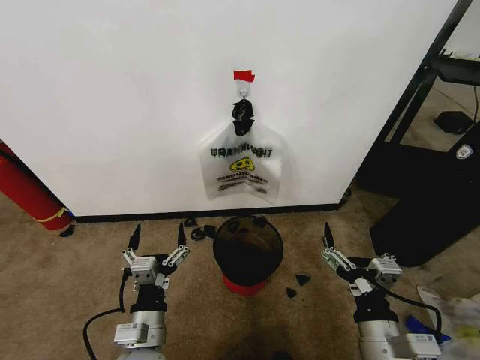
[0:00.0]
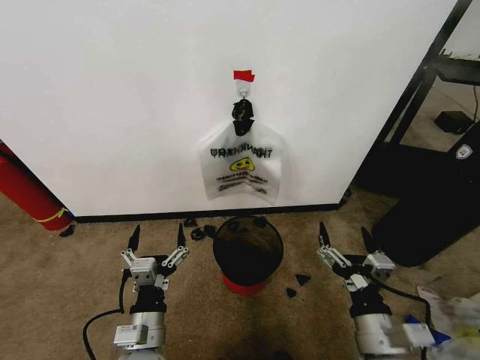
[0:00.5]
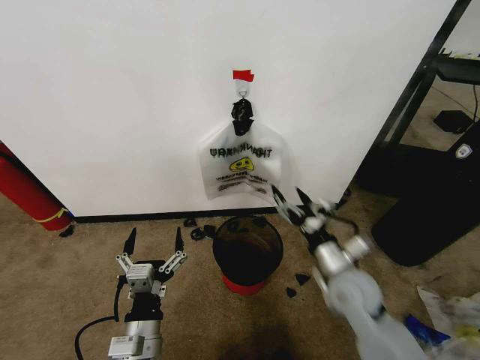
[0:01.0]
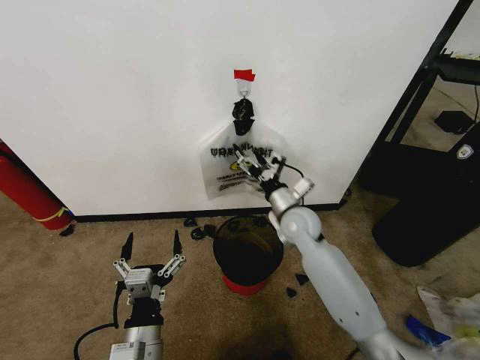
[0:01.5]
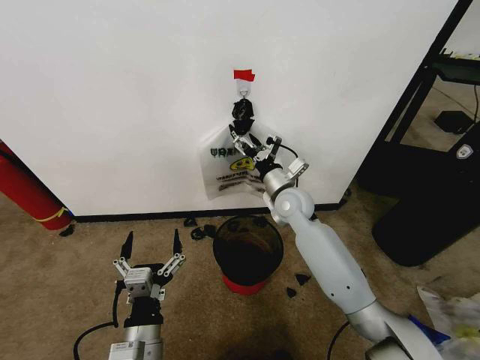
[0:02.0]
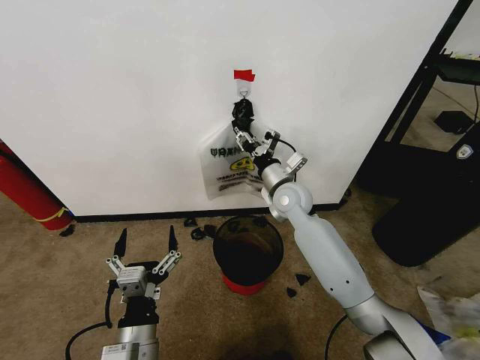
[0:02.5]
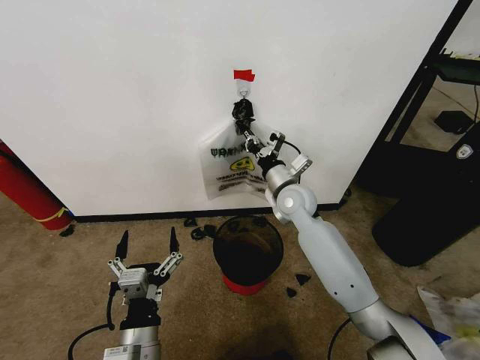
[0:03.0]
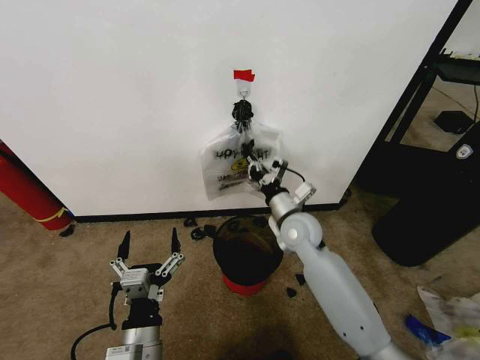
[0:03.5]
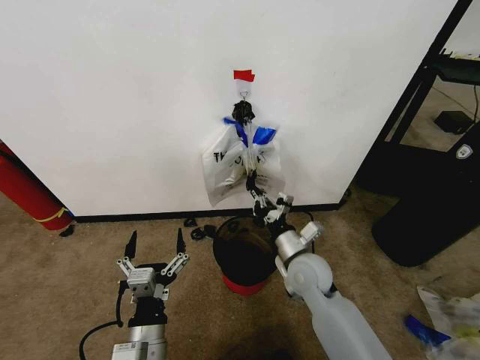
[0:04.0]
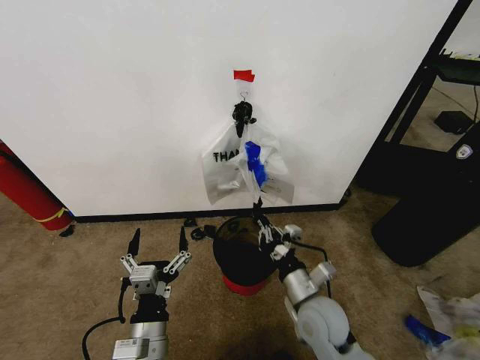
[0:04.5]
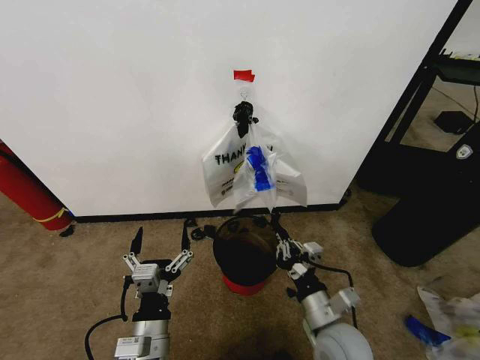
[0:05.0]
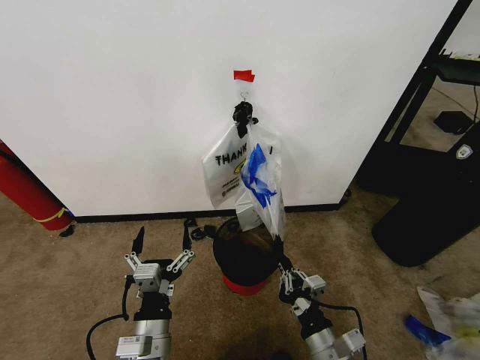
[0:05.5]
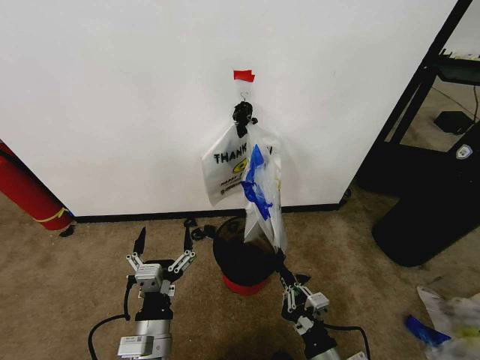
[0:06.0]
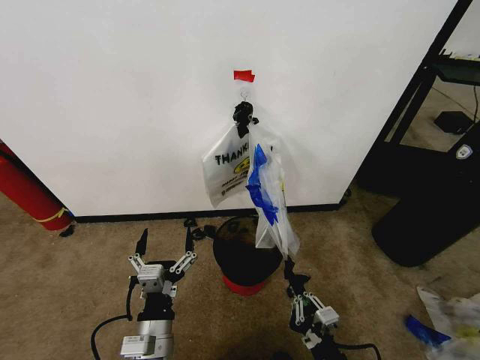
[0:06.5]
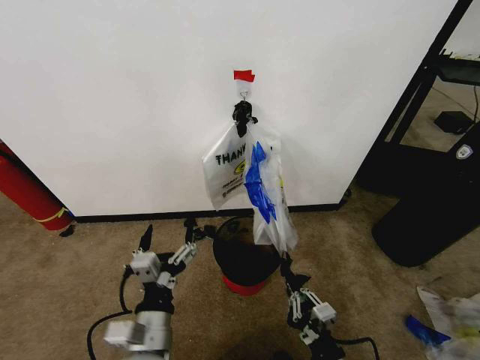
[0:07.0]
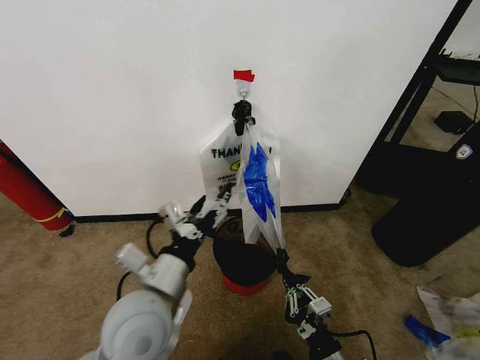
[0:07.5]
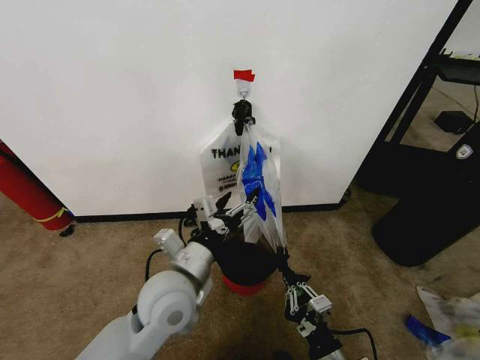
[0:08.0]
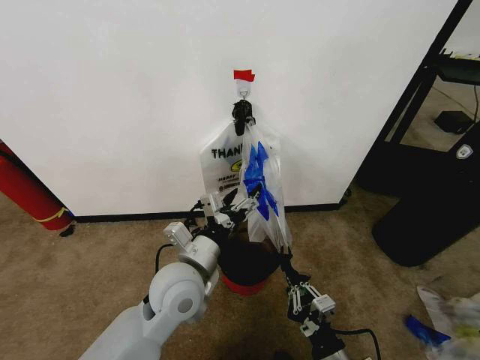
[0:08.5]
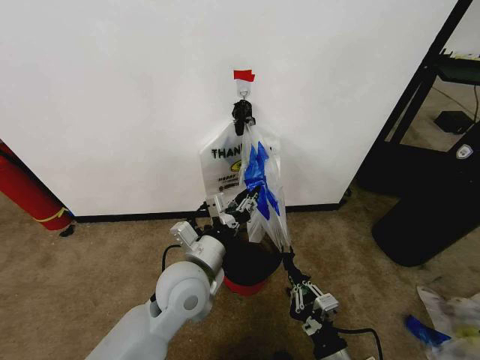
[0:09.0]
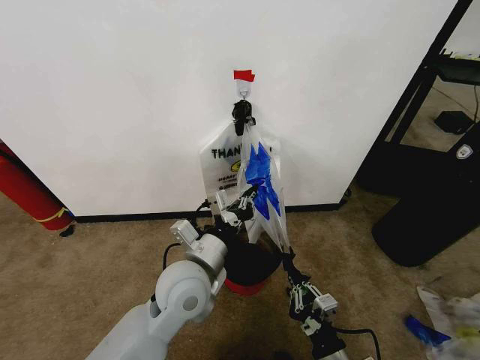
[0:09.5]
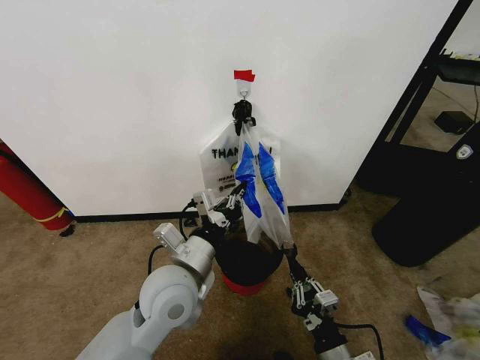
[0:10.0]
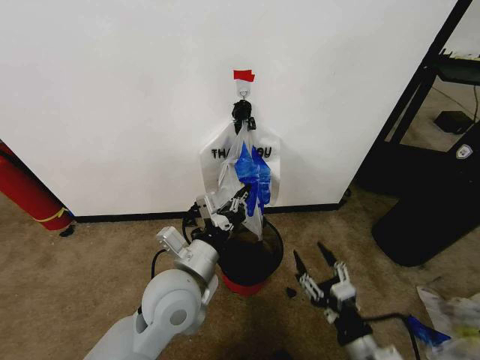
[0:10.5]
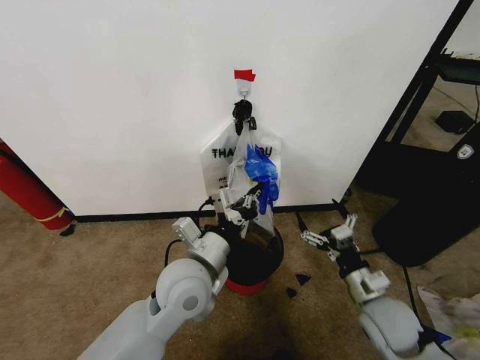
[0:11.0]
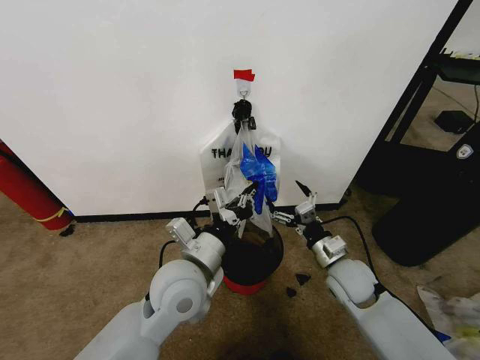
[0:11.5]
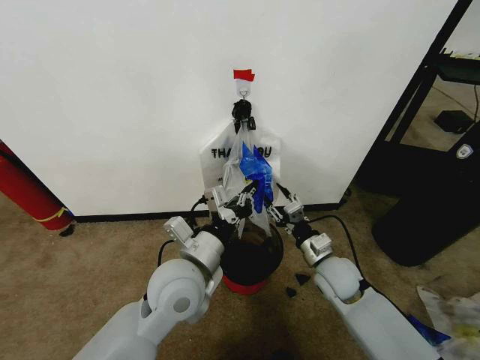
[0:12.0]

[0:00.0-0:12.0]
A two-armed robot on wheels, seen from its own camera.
Task of the whole recording: Pick up the garbage bag from the wall and place it over the trash bin.
0:02.0 to 0:04.0: The right gripper goes roughly 15 cm backward and downward, and closes its fingers.
0:04.0 to 0:06.0: The right gripper moves backward, some 25 cm.
0:06.0 to 0:08.0: The left gripper is displaced forward and upward by about 15 cm.
0:08.0 to 0:10.0: The left gripper closes up.
0:10.0 to 0:12.0: The right gripper goes about 25 cm forward, and opens up.

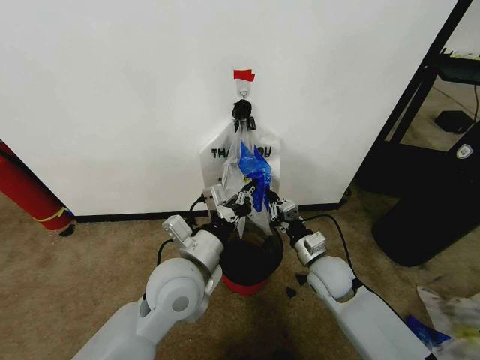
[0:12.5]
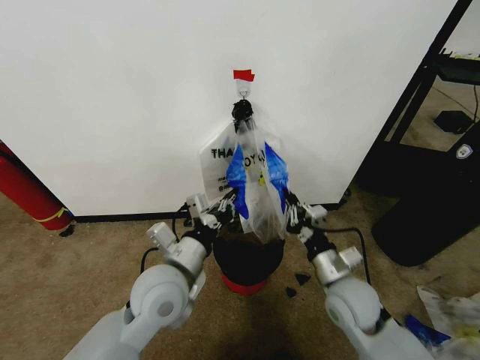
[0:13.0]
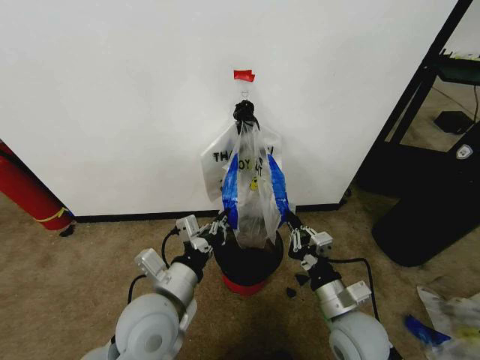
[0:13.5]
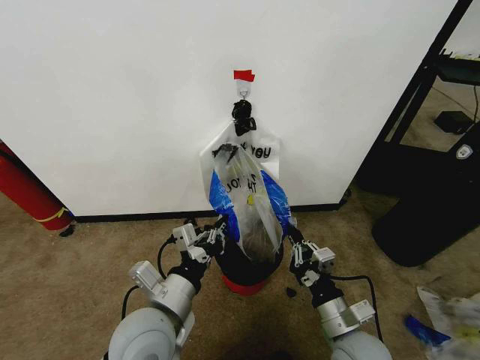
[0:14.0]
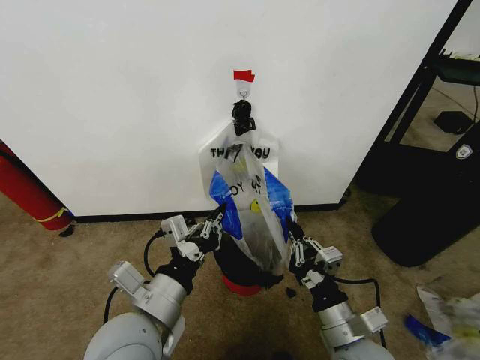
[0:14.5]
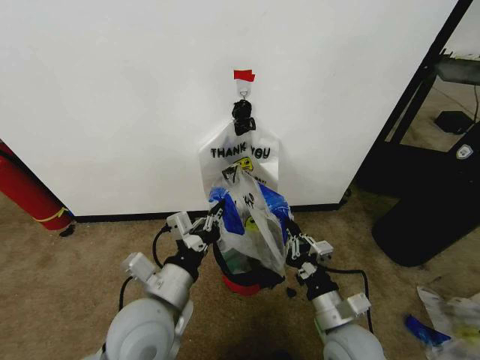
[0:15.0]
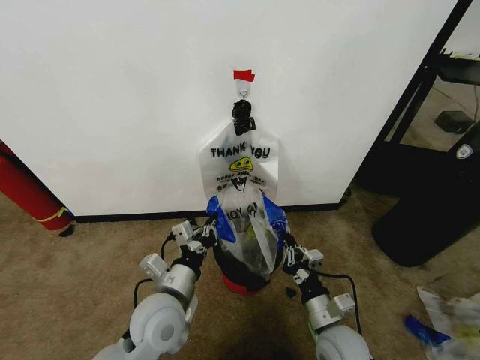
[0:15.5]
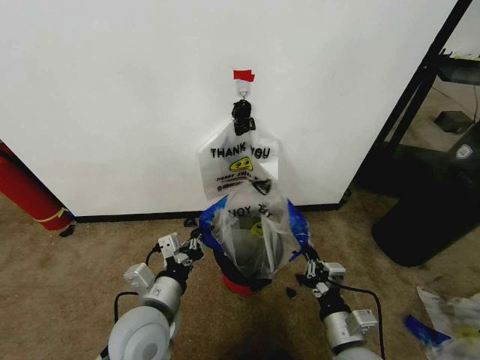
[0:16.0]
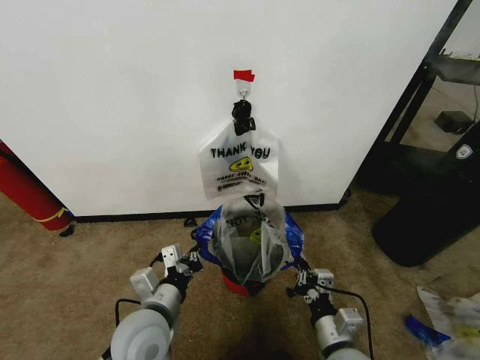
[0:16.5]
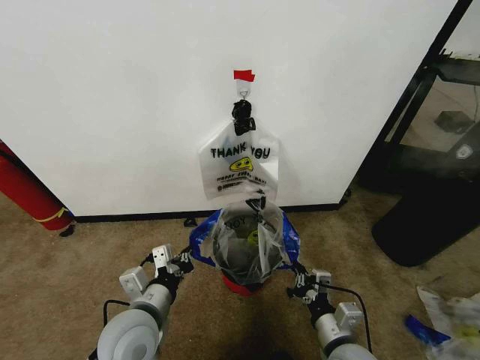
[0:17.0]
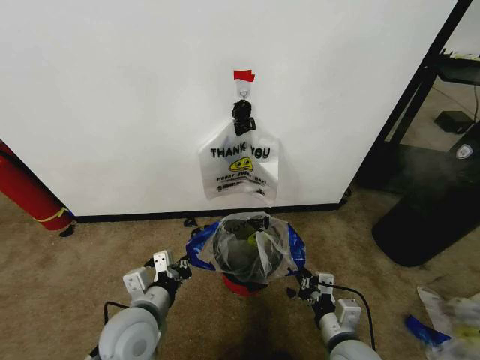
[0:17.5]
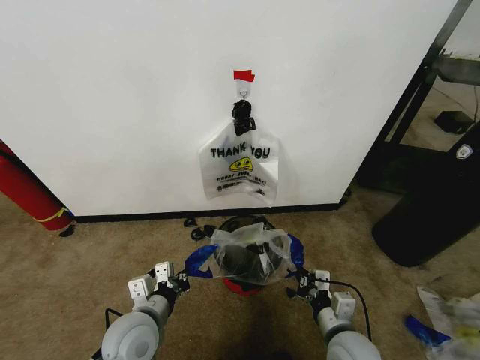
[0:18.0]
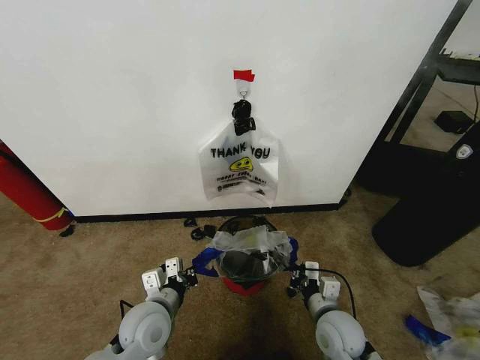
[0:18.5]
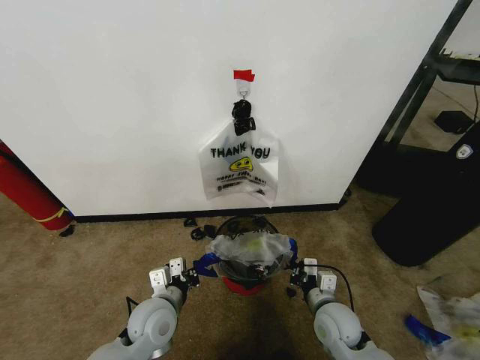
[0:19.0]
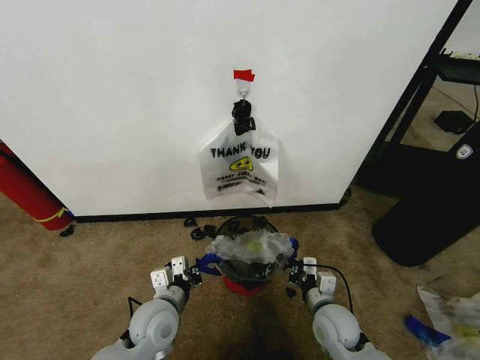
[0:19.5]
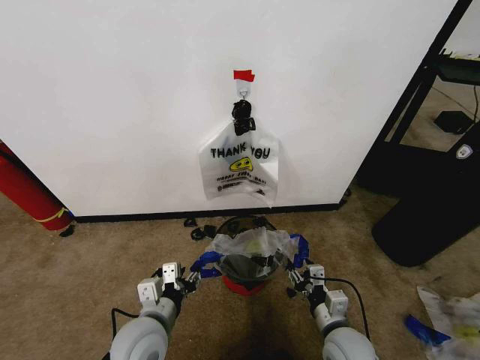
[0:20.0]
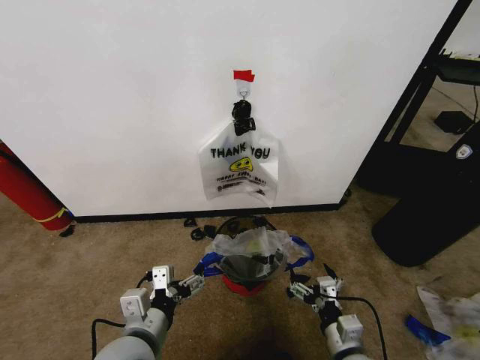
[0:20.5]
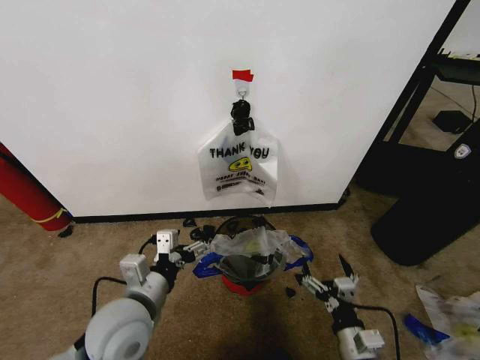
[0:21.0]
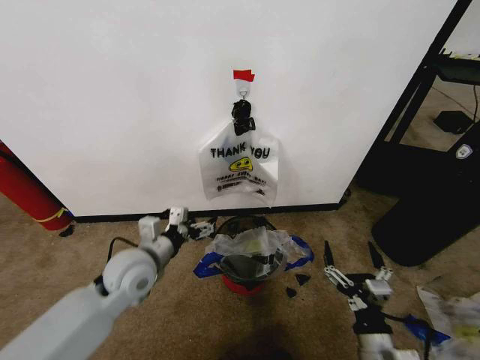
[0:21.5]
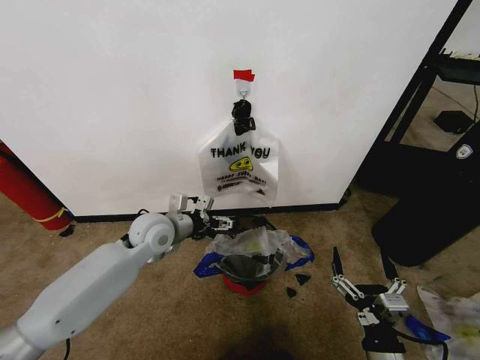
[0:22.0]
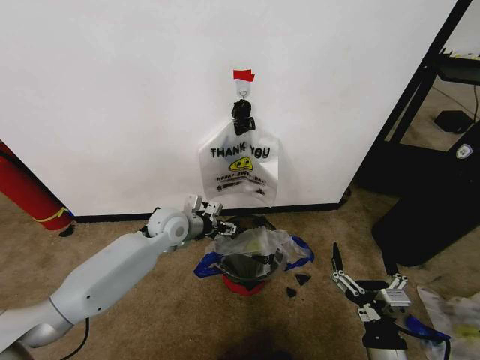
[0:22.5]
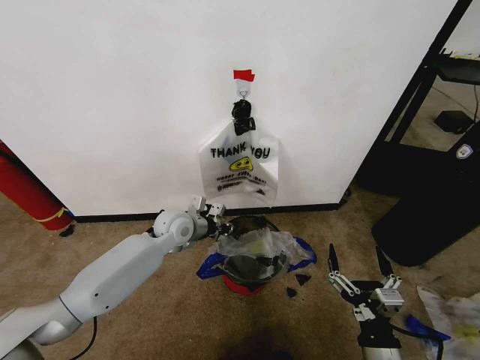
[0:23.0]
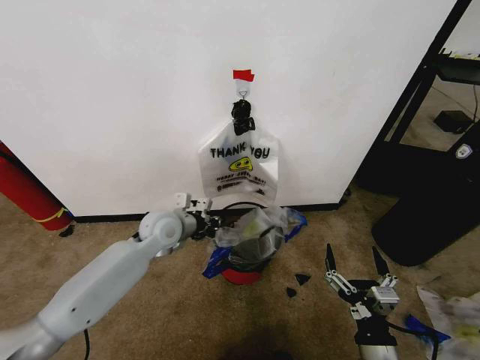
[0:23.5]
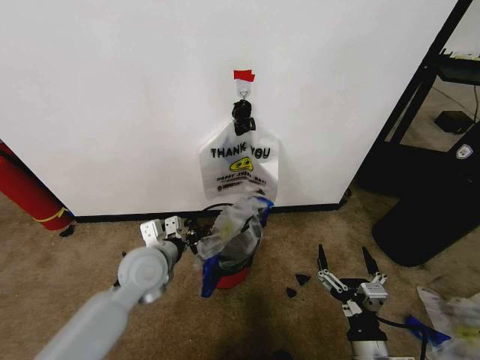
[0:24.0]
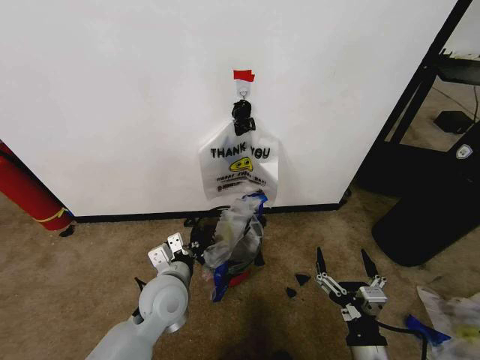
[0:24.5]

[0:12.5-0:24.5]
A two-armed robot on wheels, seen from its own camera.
Task of the whole recording: Pick up the garbage bag from the wall and place it over the trash bin.
0:12.5 to 0:14.5: The right gripper travels backward by roughly 20 cm. Meanwhile the left gripper travels backward by roughly 10 cm.
0:14.5 to 0:16.5: Both grippers travel together downward, approximately 10 cm.
0:16.5 to 0:18.5: The left gripper changes place by some 5 cm, while the right gripper shifts approximately 10 cm forward.
0:18.5 to 0:20.5: The right gripper travels backward by about 10 cm, and opens. The left gripper travels backward and upward by some 10 cm, and opens up.
0:20.5 to 0:22.5: The right gripper heads backward and upward, covering approximately 10 cm. The left gripper is displaced forward by some 30 cm.
0:22.5 to 0:24.5: The left gripper heads backward, covering approximately 15 cm, and closes.

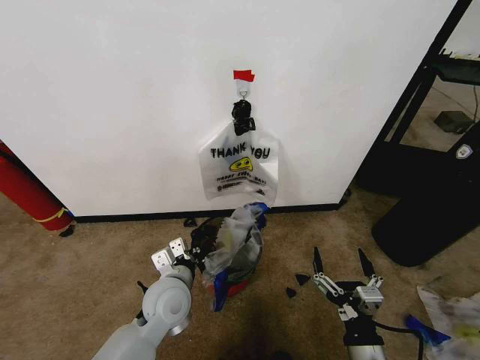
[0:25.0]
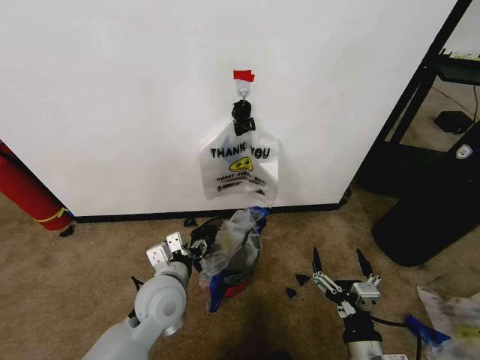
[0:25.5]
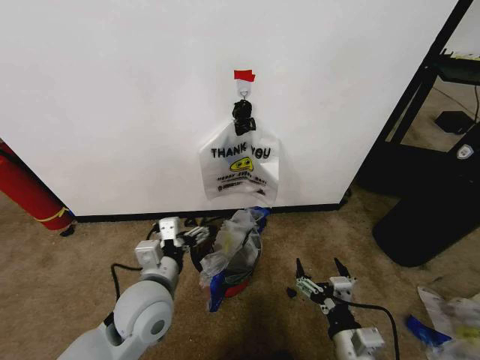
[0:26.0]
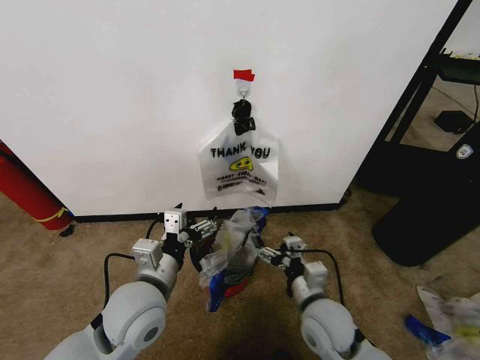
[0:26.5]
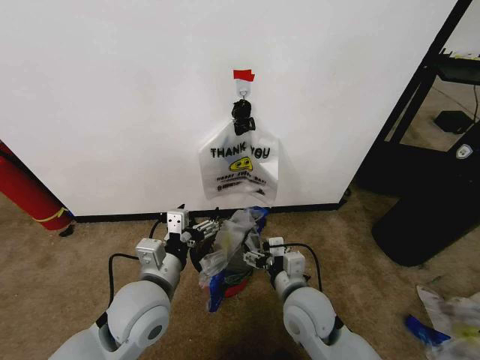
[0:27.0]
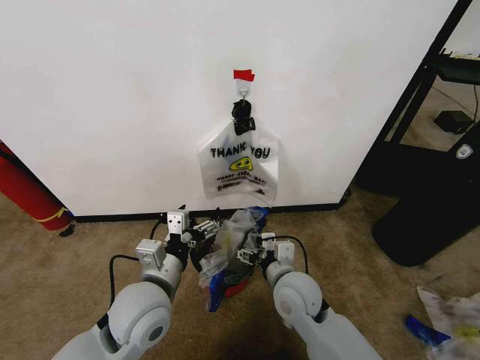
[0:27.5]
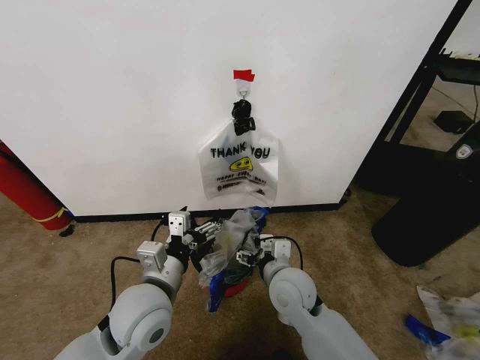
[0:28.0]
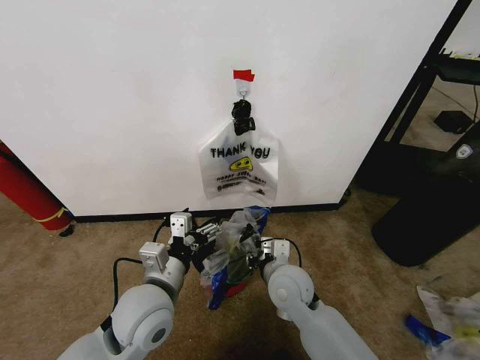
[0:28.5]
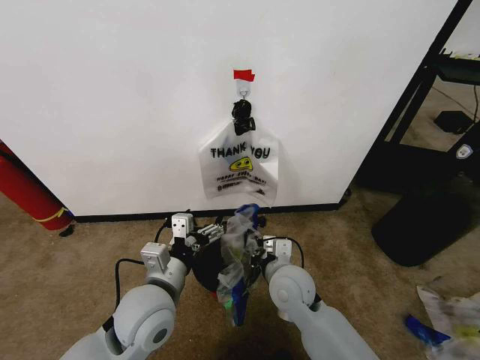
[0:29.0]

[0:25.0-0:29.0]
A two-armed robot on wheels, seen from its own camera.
Task of the whole recording: Pick up the garbage bag from the wall and place it over the trash bin.
0:25.0 to 0:27.0: The left gripper goes about 10 cm upward, and opens up. Meanwhile the right gripper heads forward and to the left, covering some 20 cm.
0:27.0 to 0:29.0: The right gripper moves some 5 cm, and closes its fingers.
